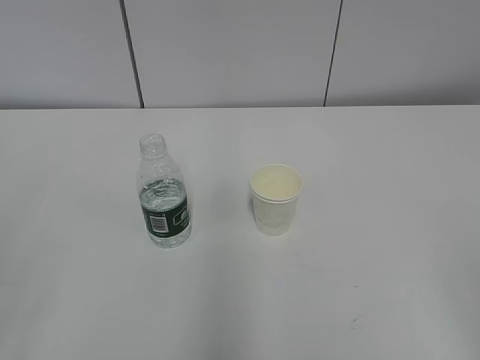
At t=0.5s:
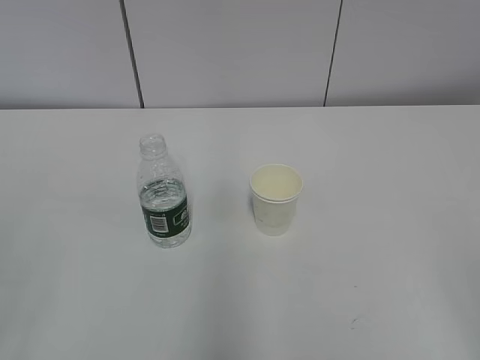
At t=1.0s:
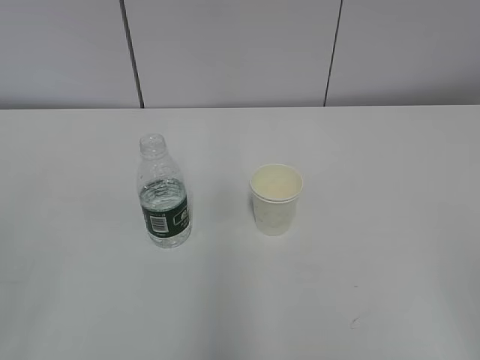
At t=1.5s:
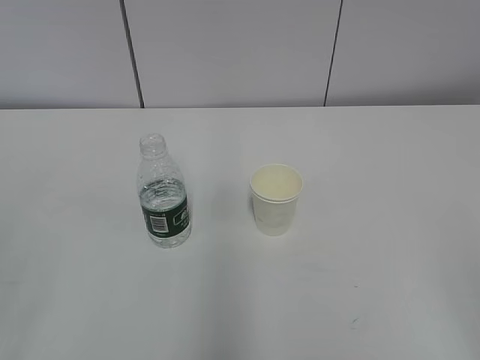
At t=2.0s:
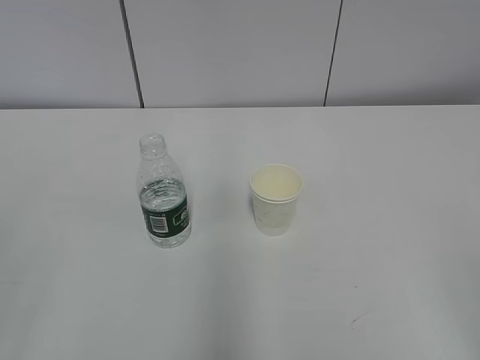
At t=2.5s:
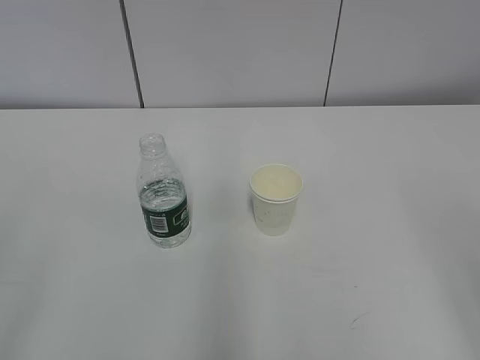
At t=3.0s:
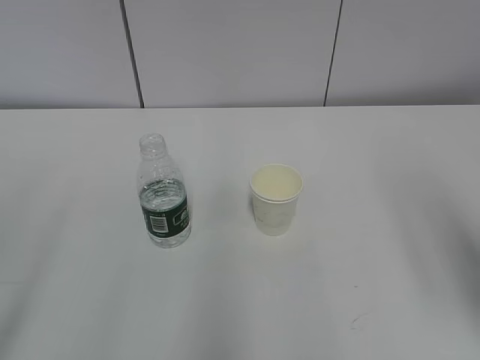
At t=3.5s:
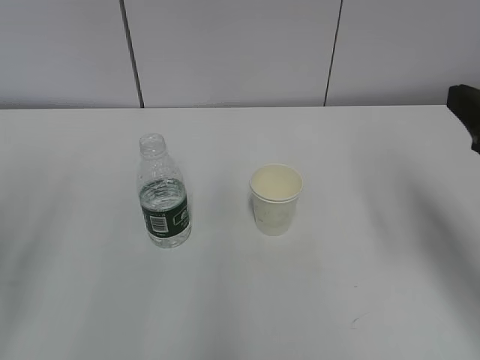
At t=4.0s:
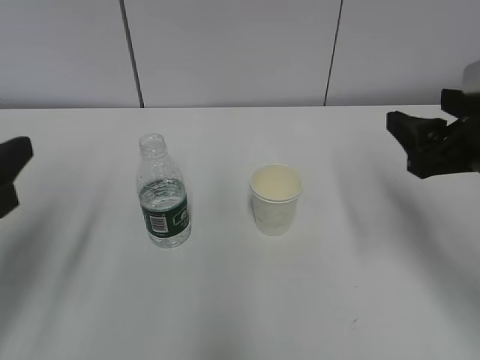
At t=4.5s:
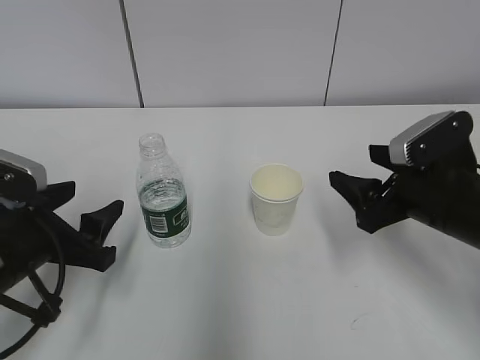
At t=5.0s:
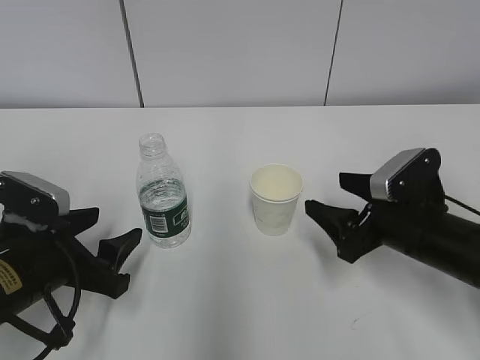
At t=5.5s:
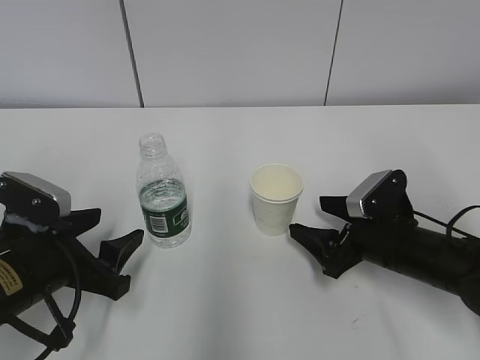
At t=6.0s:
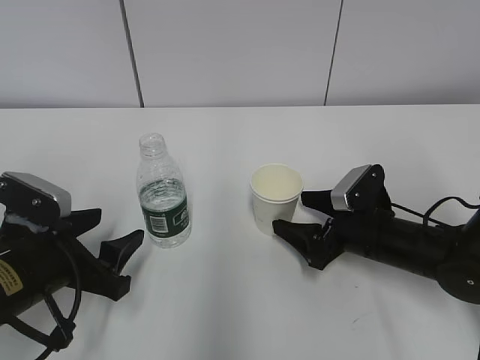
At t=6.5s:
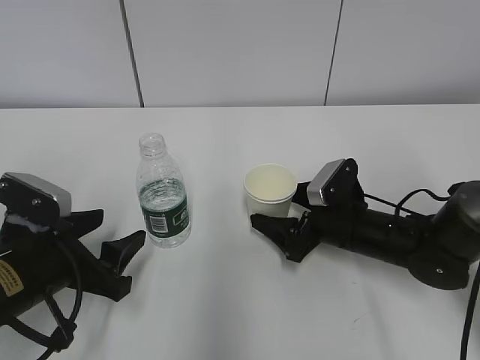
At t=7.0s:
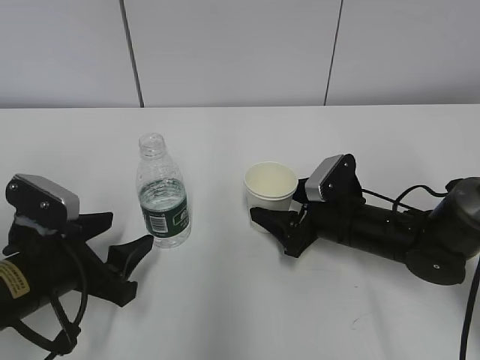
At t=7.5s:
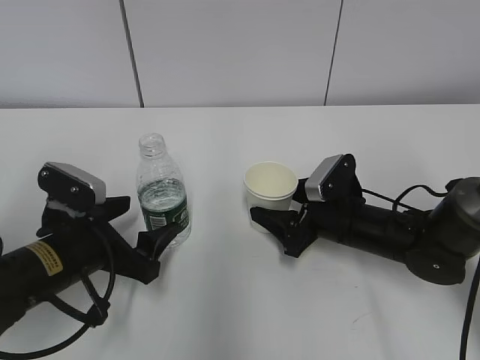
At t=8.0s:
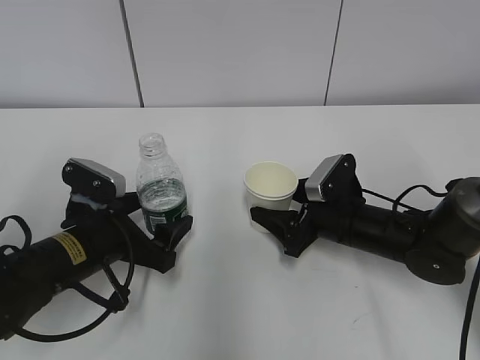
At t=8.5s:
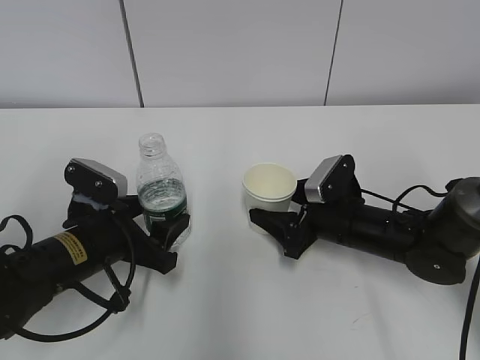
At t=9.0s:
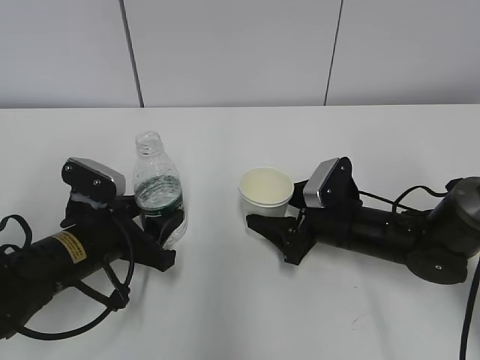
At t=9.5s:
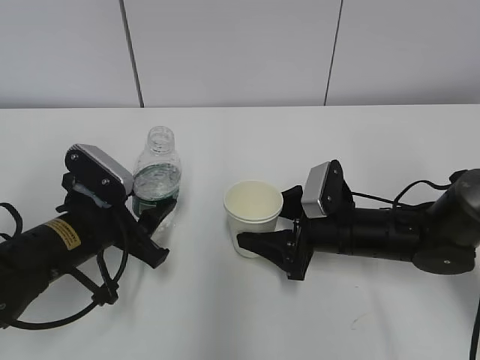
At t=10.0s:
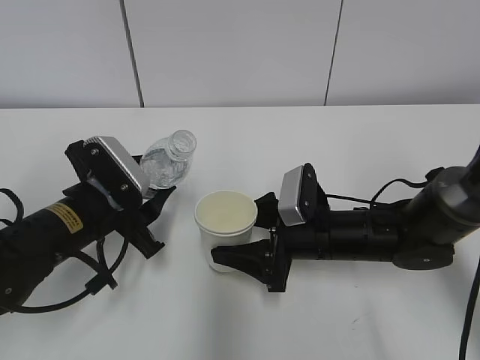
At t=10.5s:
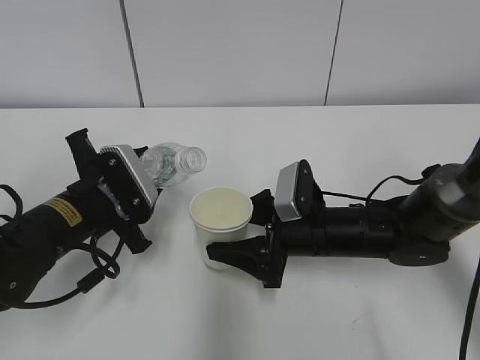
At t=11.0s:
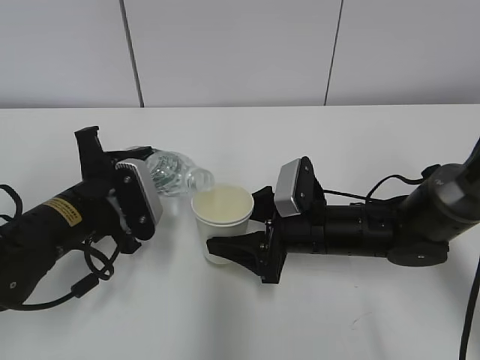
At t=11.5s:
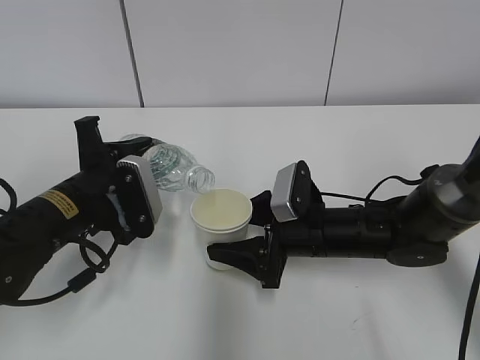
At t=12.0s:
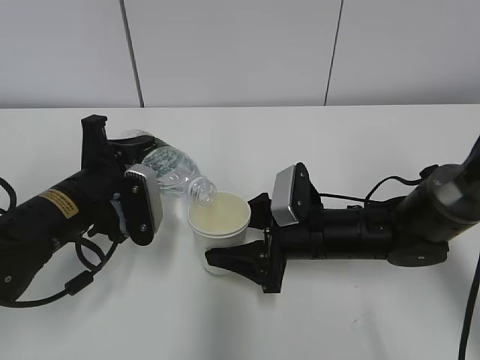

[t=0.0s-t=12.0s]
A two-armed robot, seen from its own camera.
Step, t=0.0s to t=7.0s: Grab the paper cup with the right hand.
Step, t=8.0s to t=10.0s: Lift the paper cup with the right hand.
t=2.0s to t=4.0s: Both grippers travel together forward, about 20 cm. The left gripper opens.
t=4.0s to t=6.0s: The left gripper shifts some 15 cm downward and to the right. The right gripper heads downward, covering roughly 20 cm, and opens its fingers.
t=6.0s to t=8.0s: The left gripper heads forward, covering about 5 cm; the right gripper closes.
t=8.0s to t=10.0s: The left gripper closes its fingers, while the right gripper changes place by some 5 cm.

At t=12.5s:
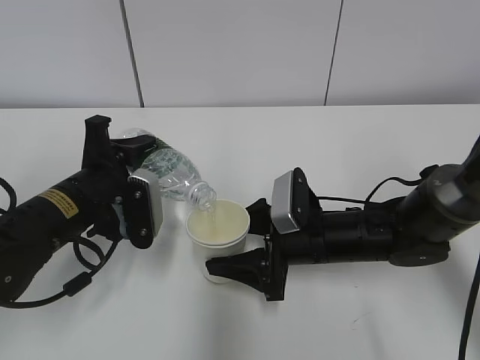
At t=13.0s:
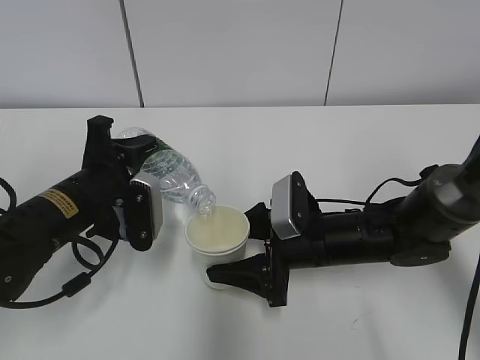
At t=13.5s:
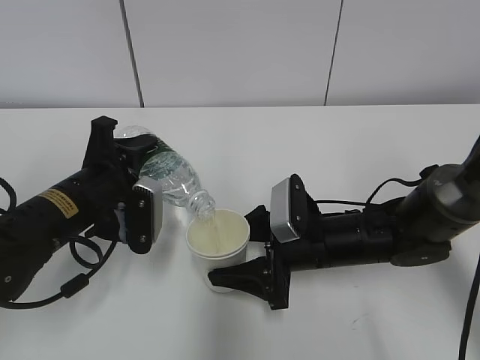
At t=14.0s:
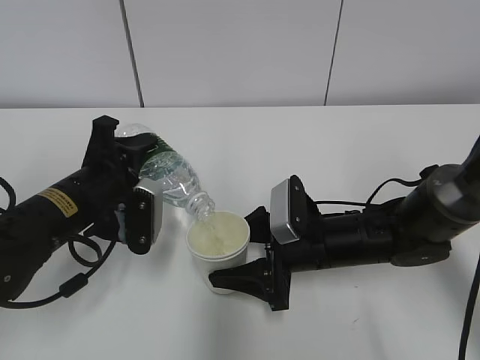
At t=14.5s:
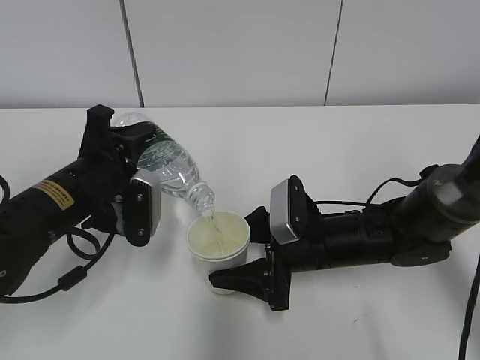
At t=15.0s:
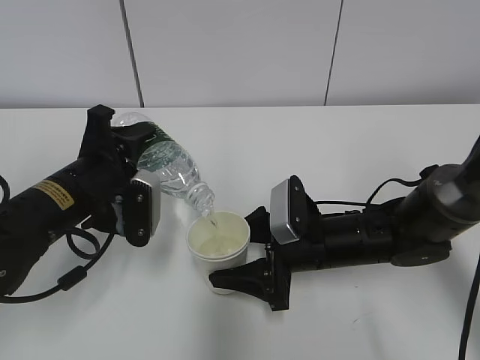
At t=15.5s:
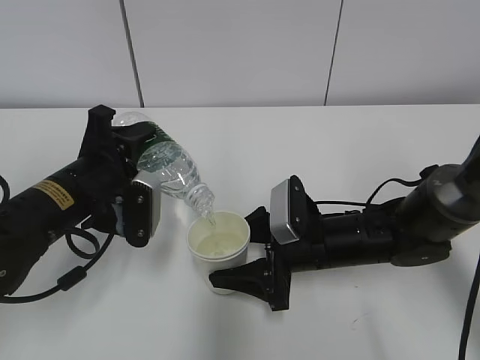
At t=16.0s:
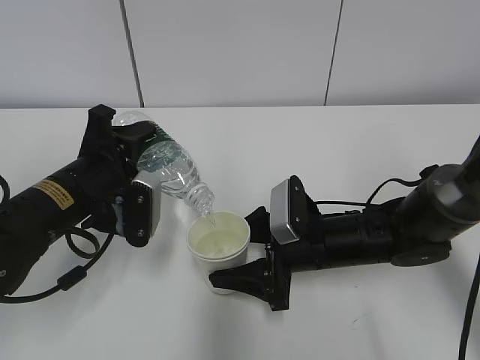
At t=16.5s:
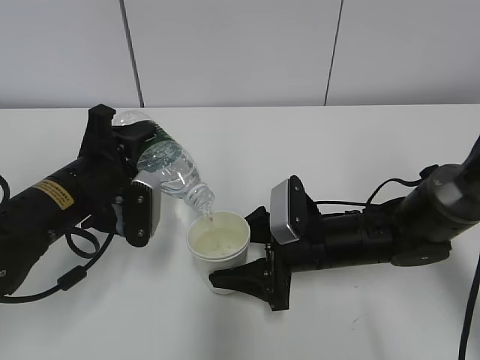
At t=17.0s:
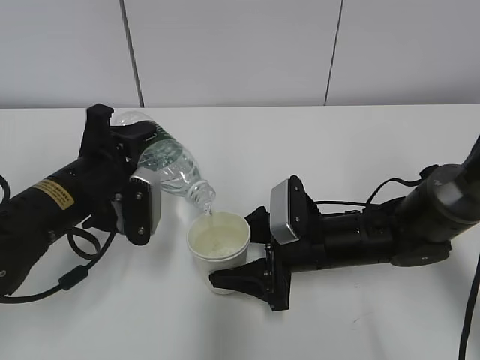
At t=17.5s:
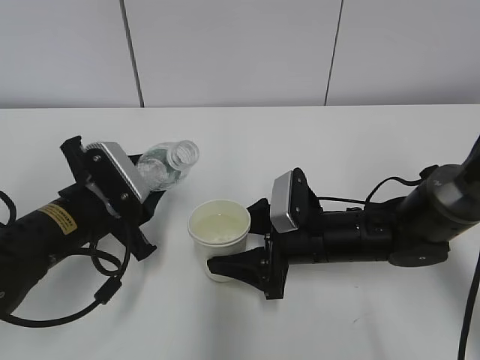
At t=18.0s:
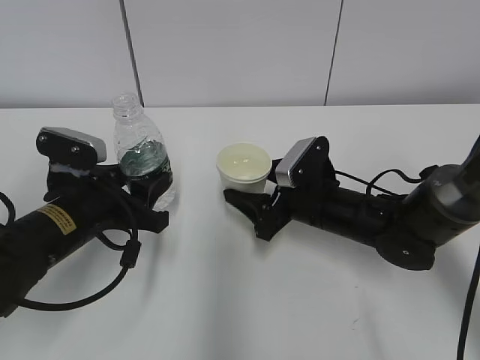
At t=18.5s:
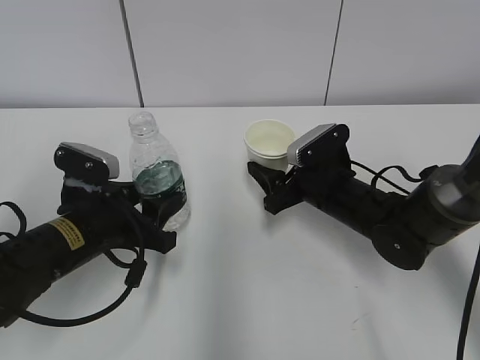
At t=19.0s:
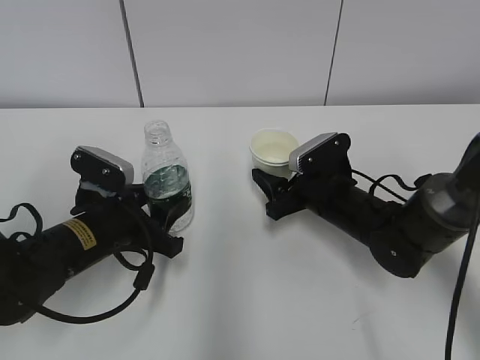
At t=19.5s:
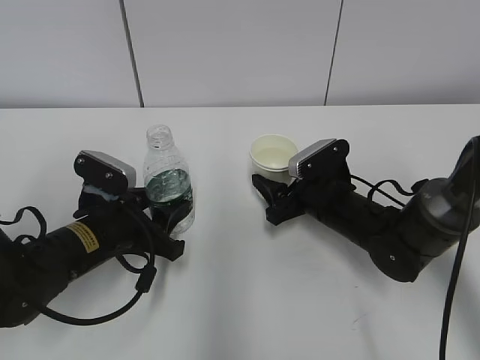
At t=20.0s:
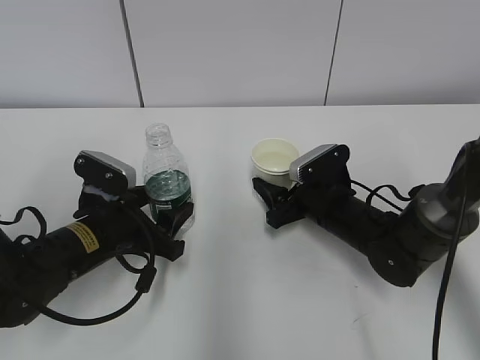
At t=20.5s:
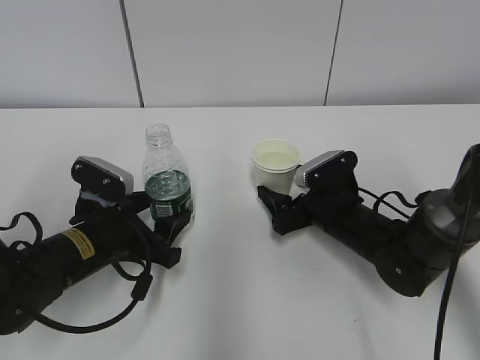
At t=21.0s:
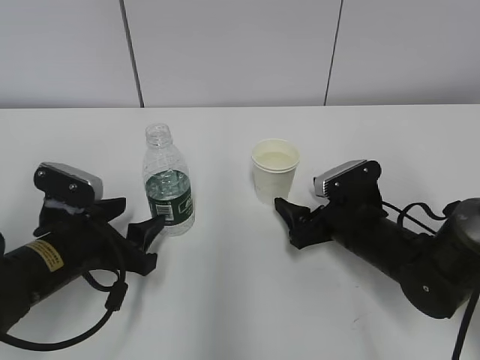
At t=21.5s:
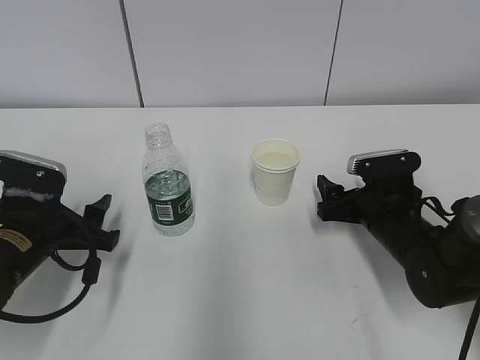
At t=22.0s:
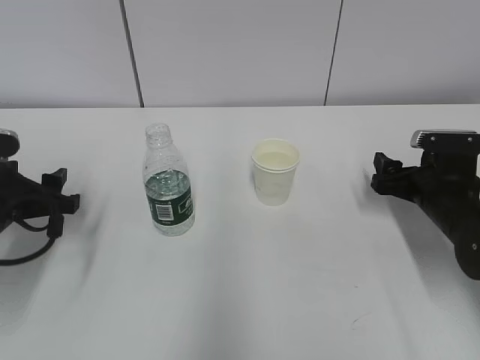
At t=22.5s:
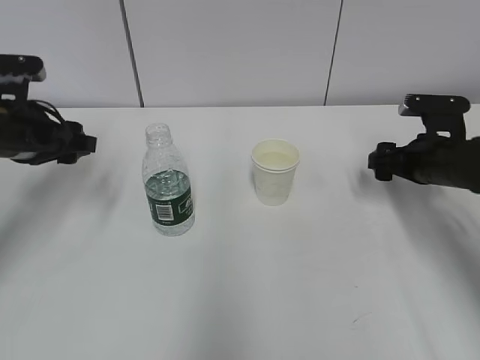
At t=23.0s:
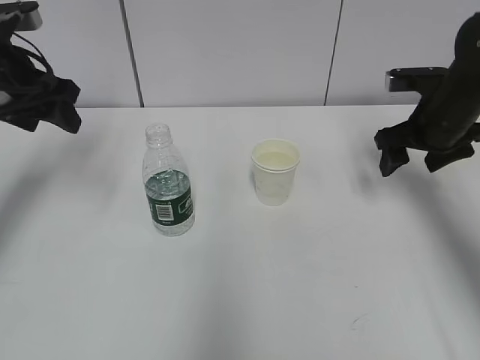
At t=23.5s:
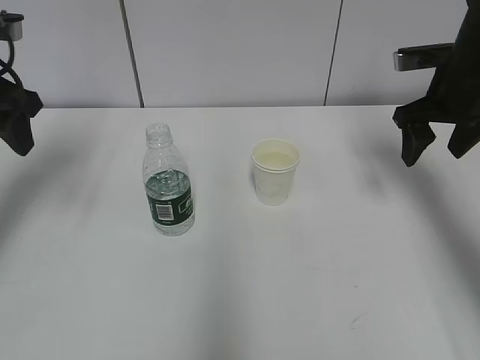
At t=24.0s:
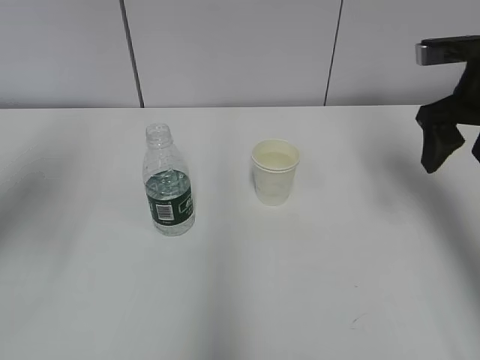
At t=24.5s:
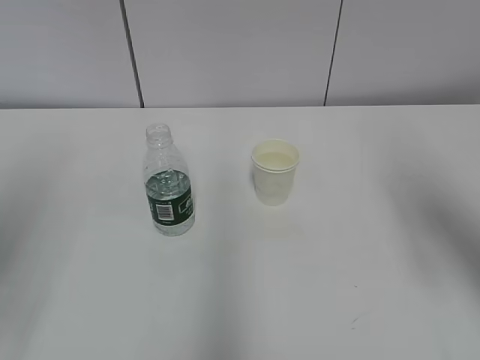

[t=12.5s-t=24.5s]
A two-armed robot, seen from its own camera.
t=12.5s to t=14.5s: The grippers move only a little.
t=14.5s to t=16.5s: Neither gripper changes place.
t=16.5s to t=18.5s: The right gripper travels forward by about 5 cm.
t=18.5s to t=20.5s: The right gripper opens its fingers.
t=20.5s to t=22.5s: The left gripper heads upward, to the left and forward, covering about 15 cm. The right gripper moves to the right and upward, approximately 15 cm.
t=22.5s to t=24.5s: The right gripper heads upward and backward, covering about 25 cm. The left gripper moves backward and upward, approximately 25 cm.

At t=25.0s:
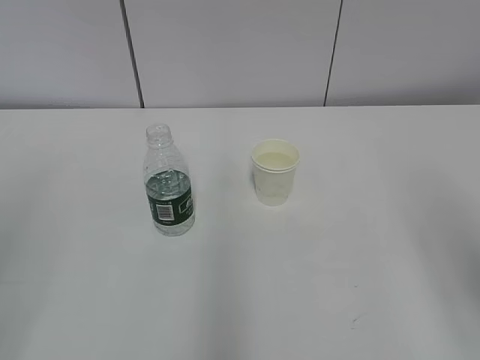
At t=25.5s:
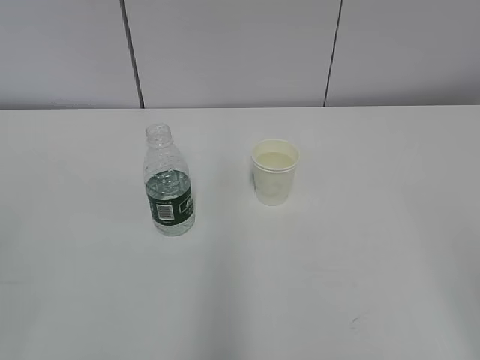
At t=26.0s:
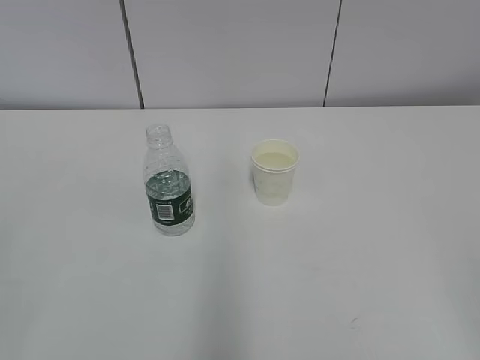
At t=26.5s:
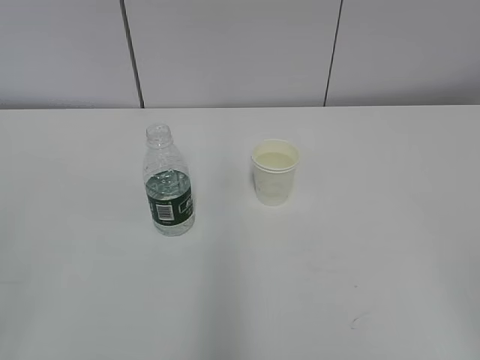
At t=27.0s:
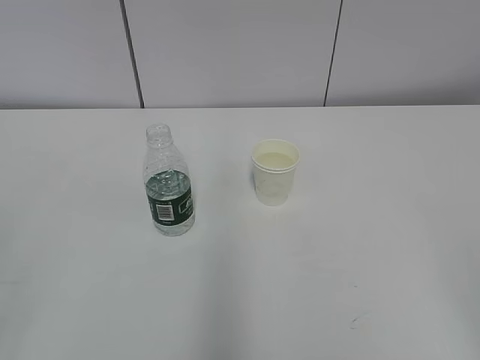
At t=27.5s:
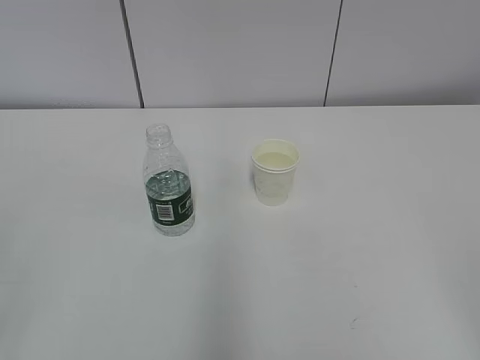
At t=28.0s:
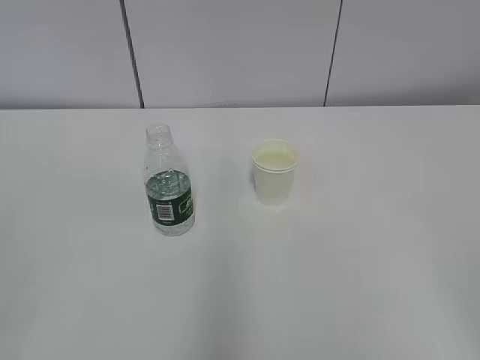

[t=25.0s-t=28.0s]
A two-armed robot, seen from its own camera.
t=26.5s to t=28.0s: Both grippers stay put.
